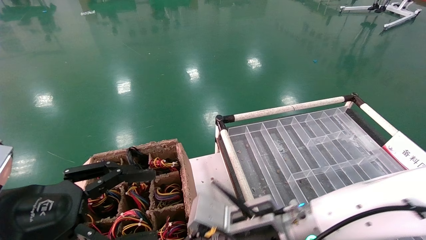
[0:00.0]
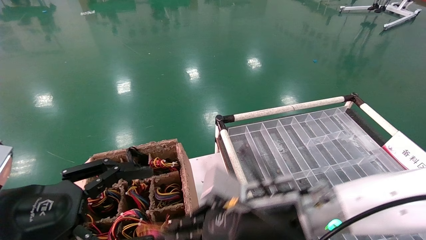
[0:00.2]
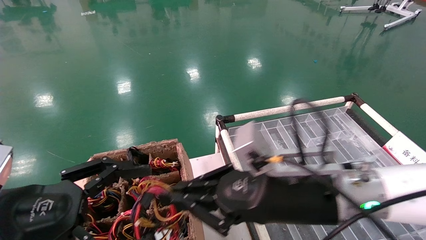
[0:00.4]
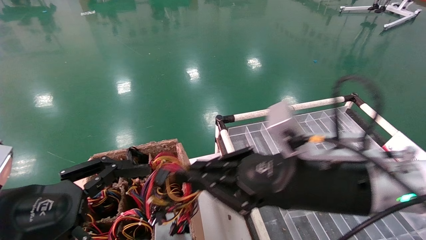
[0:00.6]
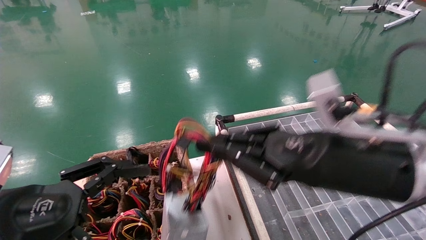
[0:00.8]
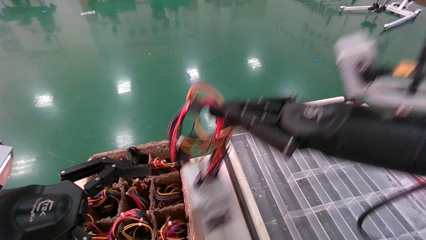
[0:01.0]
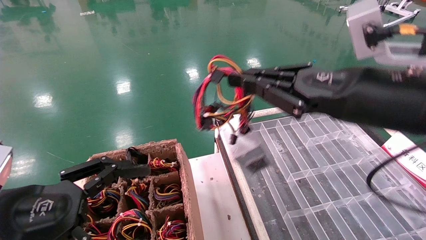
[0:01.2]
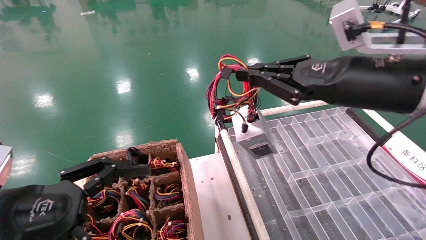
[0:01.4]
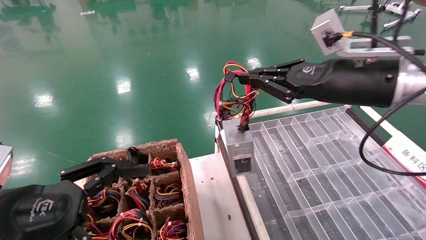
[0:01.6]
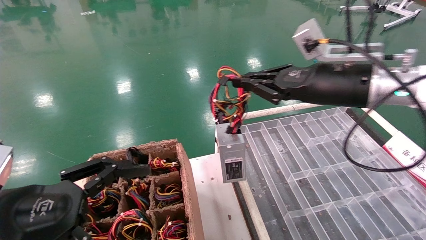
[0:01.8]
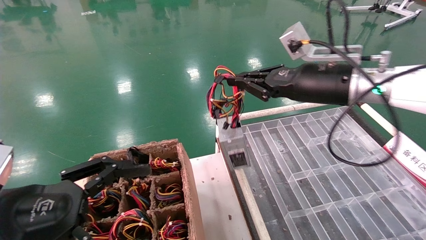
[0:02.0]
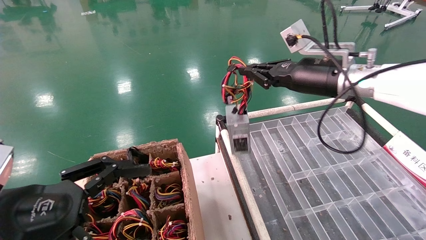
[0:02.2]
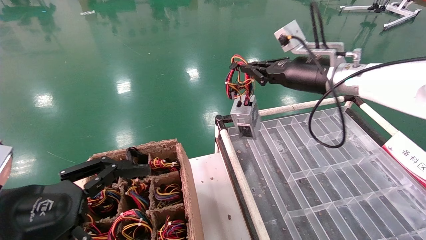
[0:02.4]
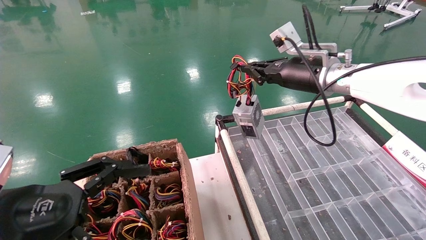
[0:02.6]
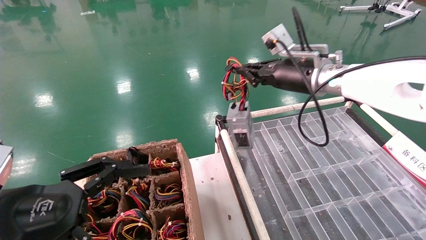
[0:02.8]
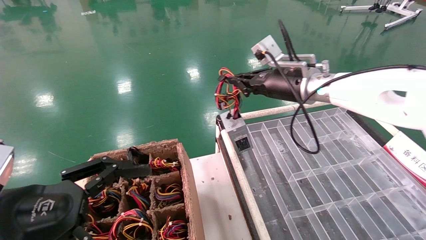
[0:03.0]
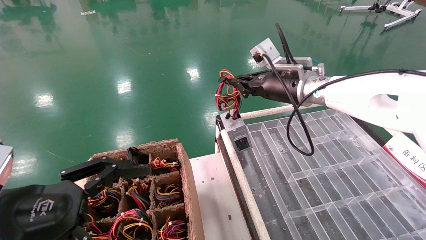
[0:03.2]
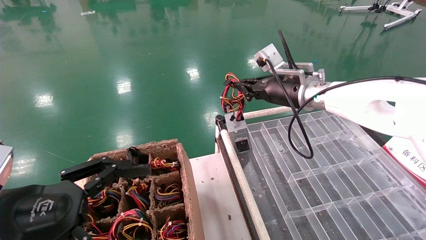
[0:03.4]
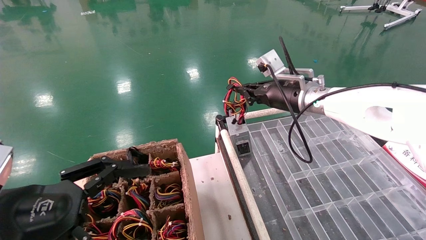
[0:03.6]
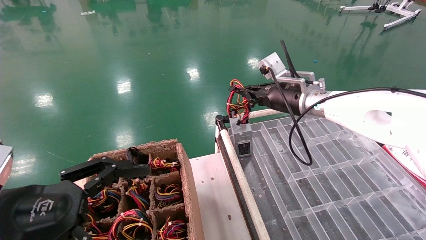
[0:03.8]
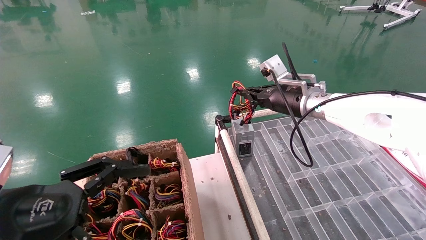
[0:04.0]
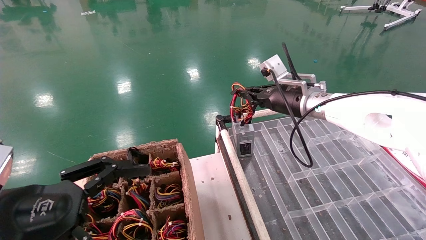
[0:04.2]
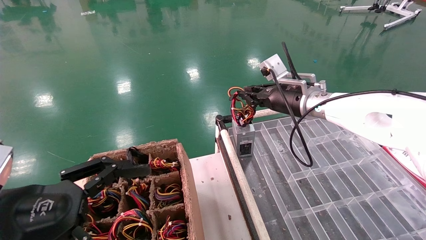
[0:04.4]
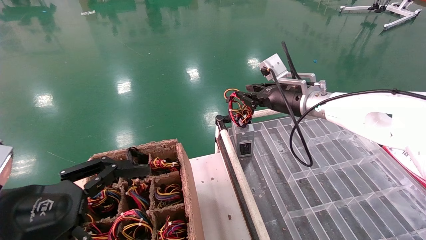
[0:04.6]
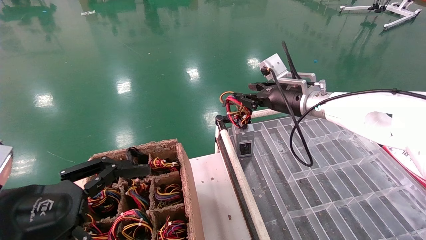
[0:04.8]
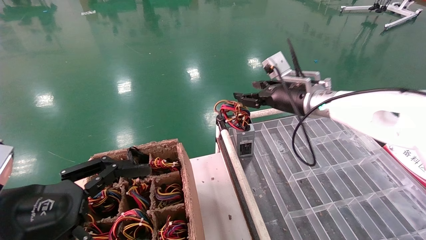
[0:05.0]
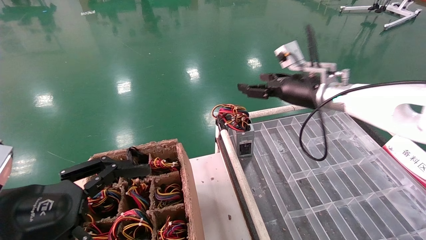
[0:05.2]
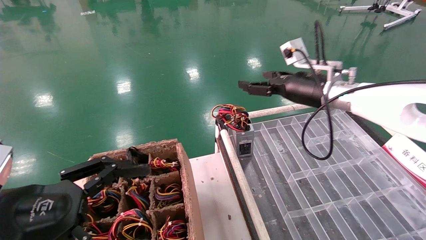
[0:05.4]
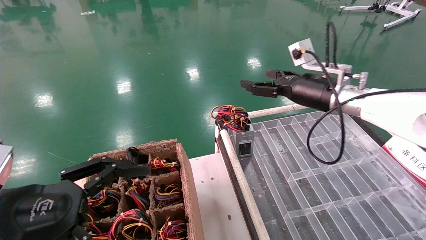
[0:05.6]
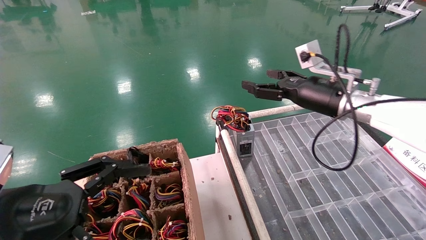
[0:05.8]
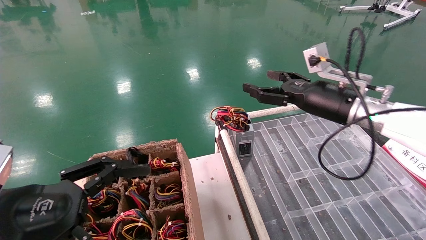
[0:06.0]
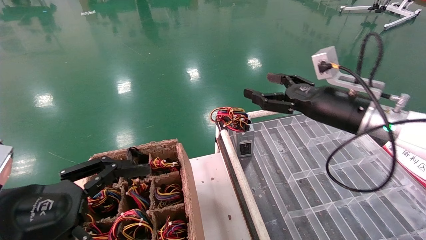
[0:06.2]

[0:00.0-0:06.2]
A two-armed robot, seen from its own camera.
Step, 0:00.0 to 0:04.4: Place the power supply on the operating table.
0:00.0 to 0:01.6: The right gripper goes approximately 25 cm upward and to the right; the left gripper opens its fingers.
0:01.6 to 0:03.2: The right gripper goes about 15 cm forward and to the left.
0:03.2 to 0:04.6: The grippers stay close to where they were, moving slightly.
0:04.6 to 0:06.2: The right gripper goes about 10 cm backward and to the right, and opens its fingers.

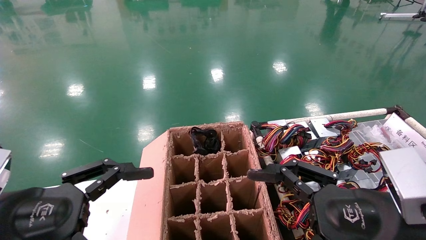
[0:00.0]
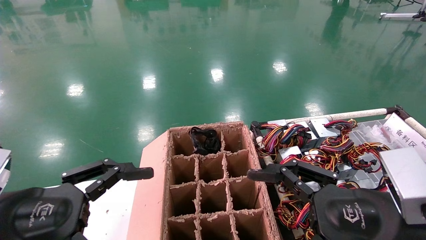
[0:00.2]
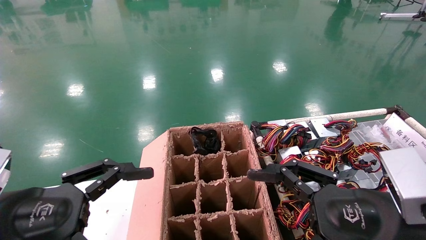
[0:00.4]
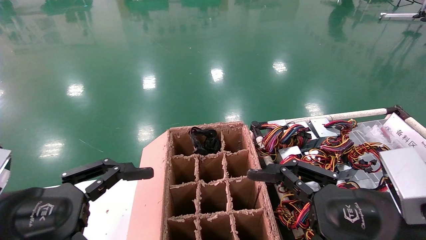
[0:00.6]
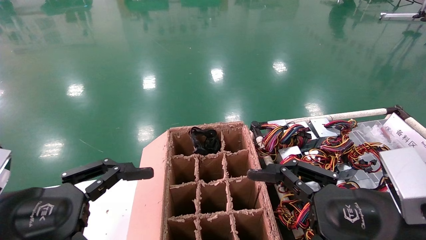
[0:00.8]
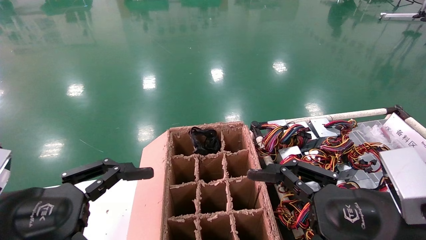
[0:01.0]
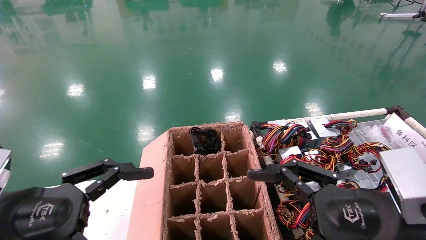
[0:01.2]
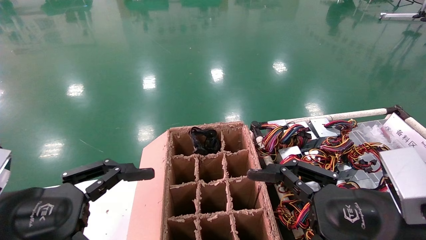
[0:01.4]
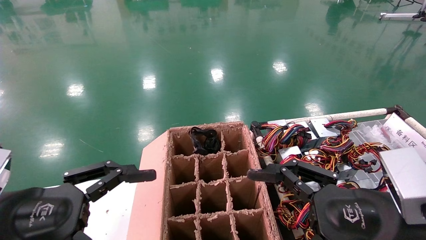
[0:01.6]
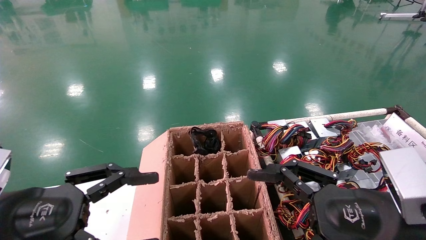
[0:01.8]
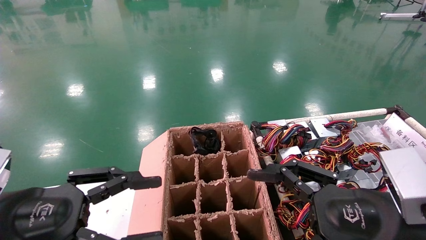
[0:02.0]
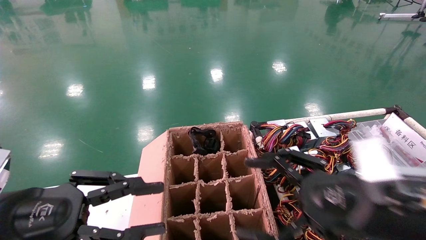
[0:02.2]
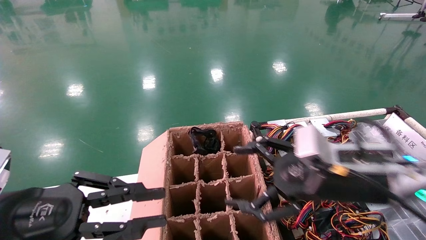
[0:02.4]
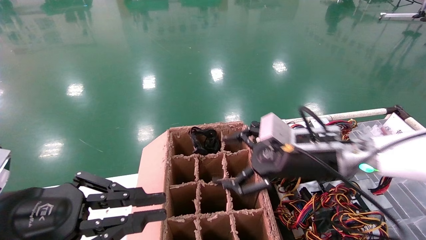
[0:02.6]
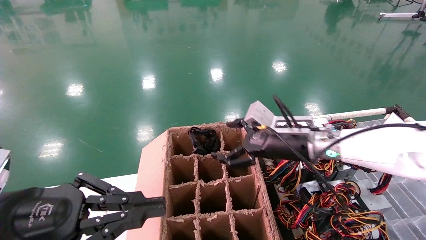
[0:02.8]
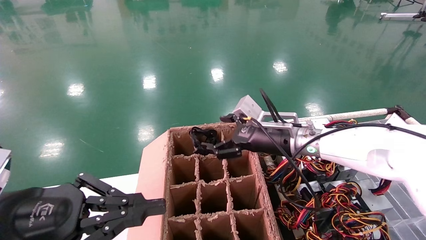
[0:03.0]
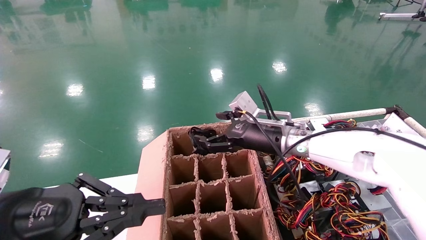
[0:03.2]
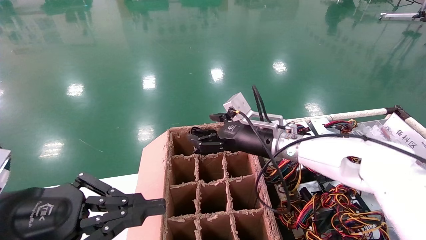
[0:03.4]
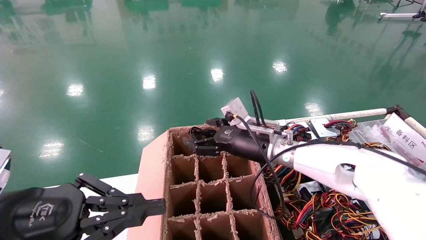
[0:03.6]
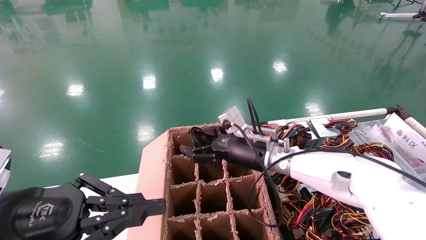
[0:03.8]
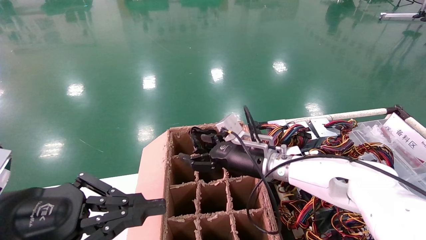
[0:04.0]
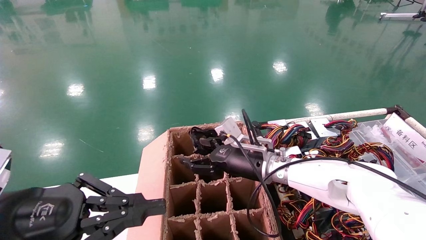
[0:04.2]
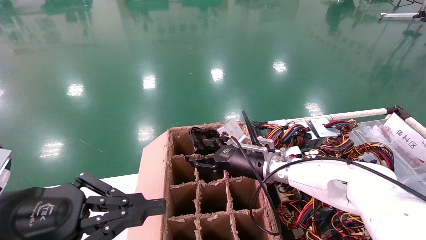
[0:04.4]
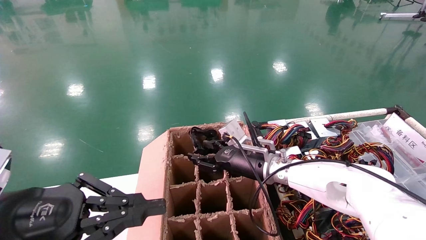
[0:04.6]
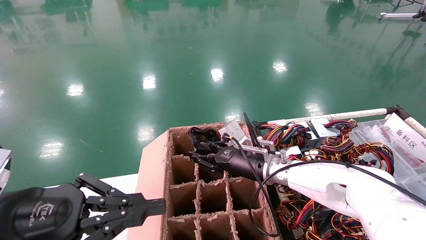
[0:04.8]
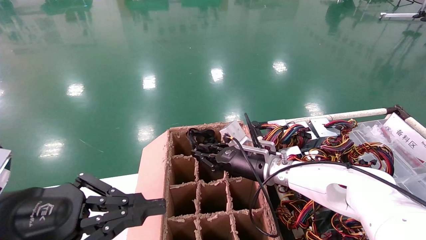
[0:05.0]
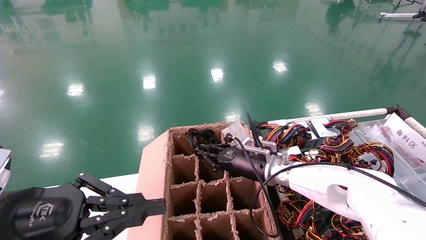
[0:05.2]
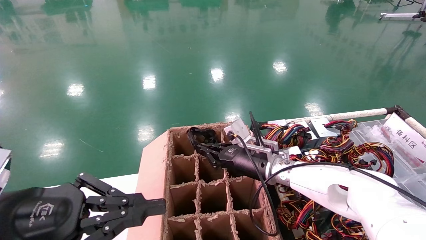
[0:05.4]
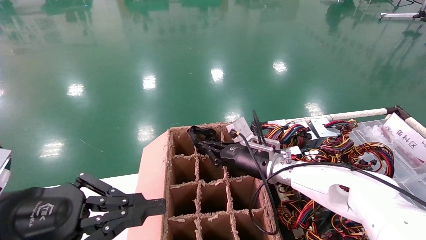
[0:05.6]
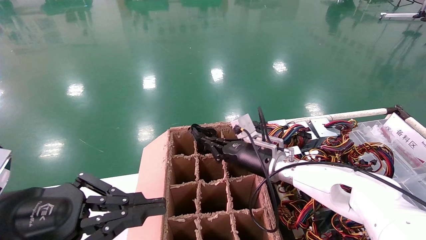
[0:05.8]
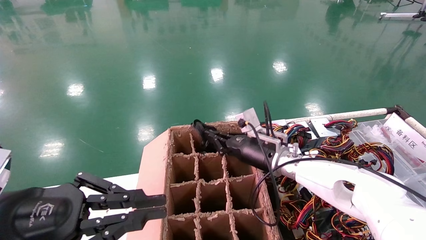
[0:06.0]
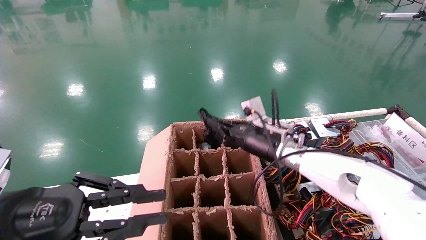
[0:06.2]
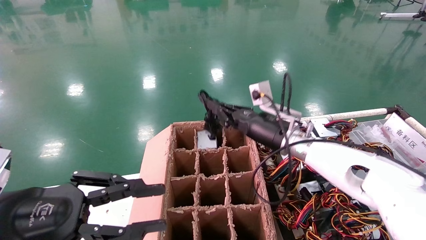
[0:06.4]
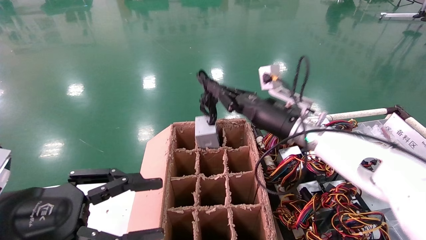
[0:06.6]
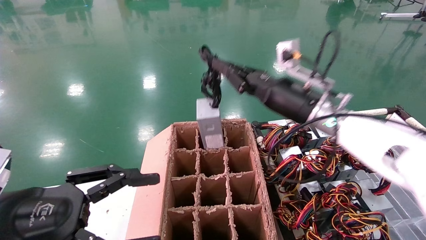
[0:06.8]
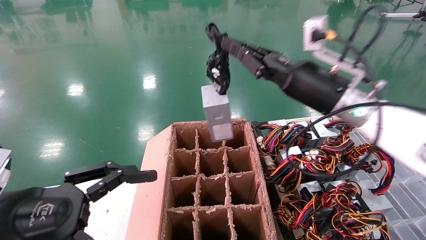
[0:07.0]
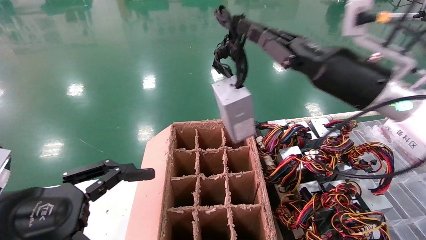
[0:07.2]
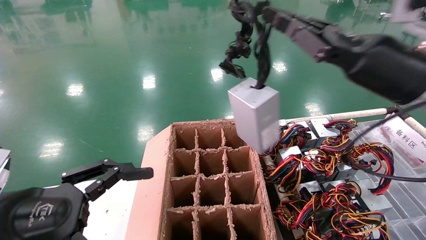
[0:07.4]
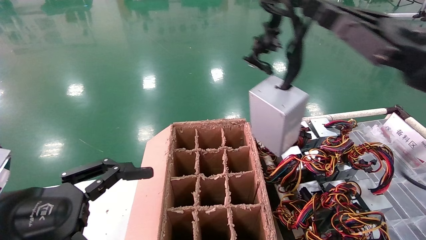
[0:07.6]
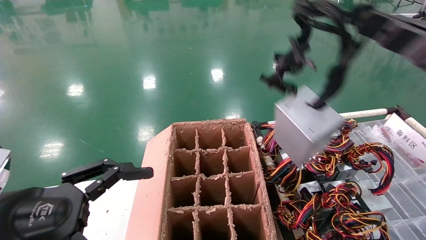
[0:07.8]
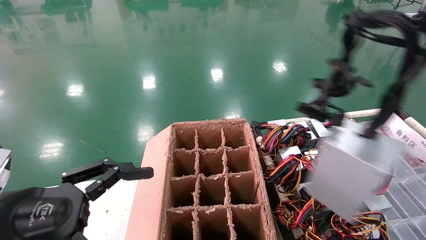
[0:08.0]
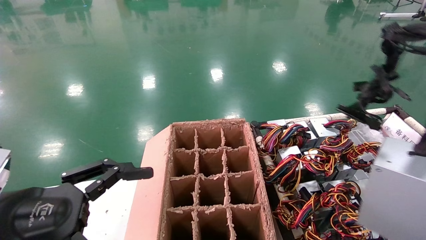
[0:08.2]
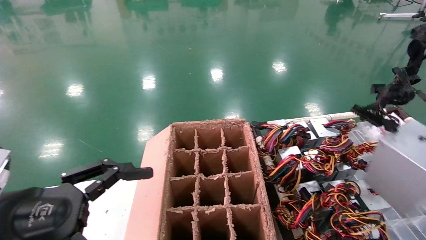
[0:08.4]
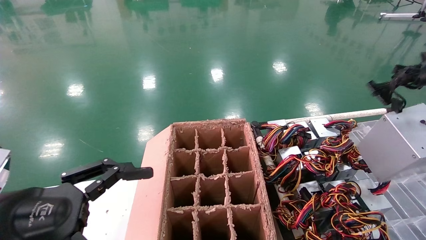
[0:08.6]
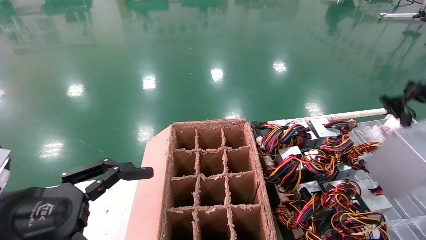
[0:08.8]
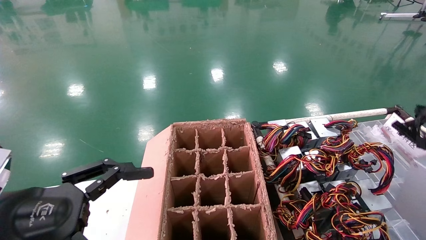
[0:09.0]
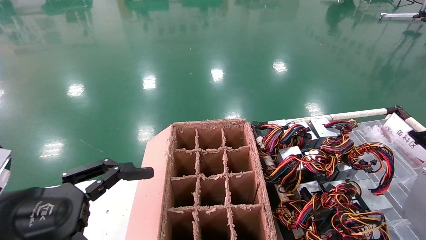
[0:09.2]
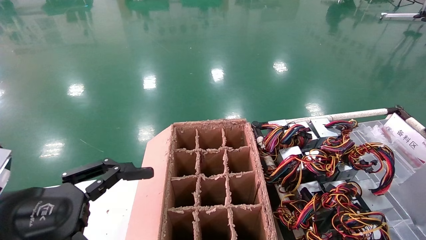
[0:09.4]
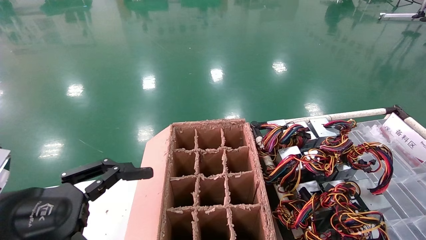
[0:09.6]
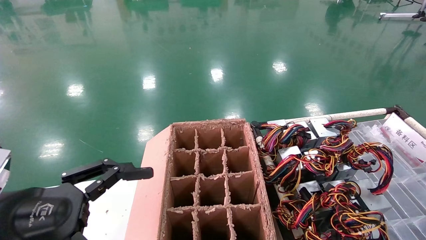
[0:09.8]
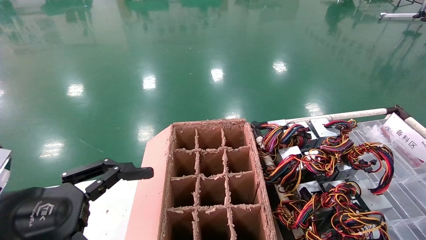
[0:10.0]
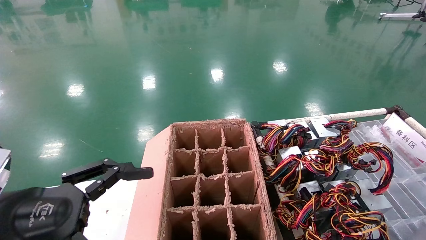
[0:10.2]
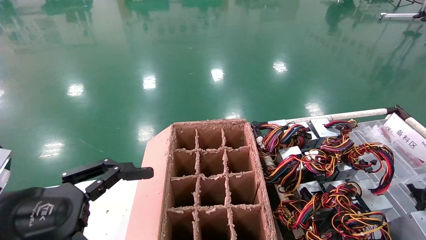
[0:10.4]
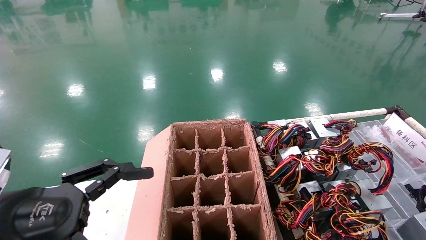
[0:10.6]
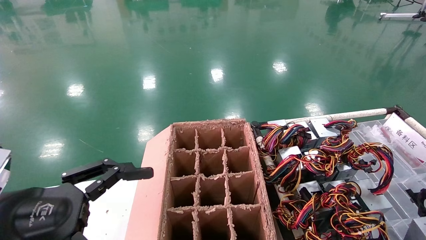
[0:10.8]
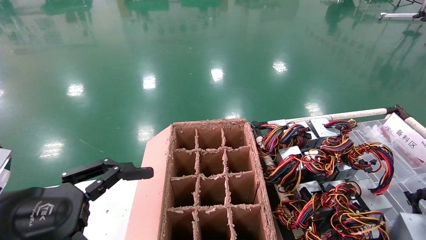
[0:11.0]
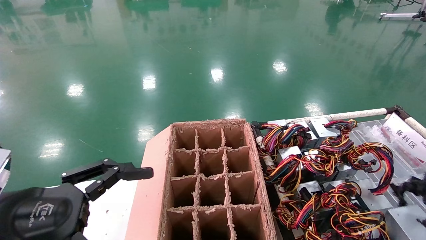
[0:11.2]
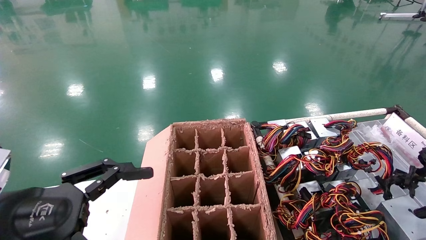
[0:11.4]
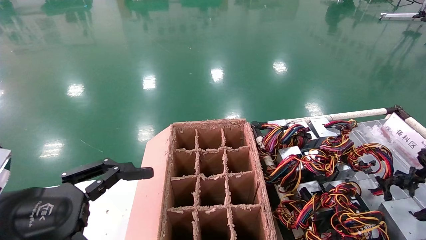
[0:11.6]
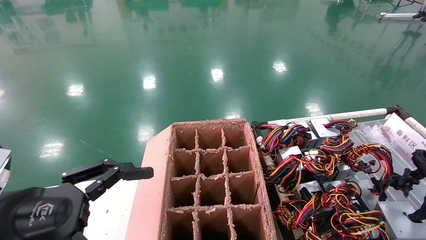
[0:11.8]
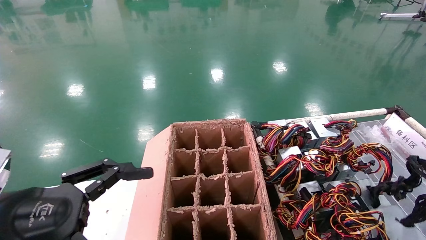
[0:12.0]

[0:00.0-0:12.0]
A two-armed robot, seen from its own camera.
Step, 0:02.8 to 0:06.0: Grab and lift the power supply from the large box.
0:00.0 to 0:01.6: The two grippers keep their place.
0:01.6 to 0:03.0: The right gripper moves forward, approximately 25 cm; the left gripper closes.
0:03.0 to 0:04.4: The right gripper travels downward by some 5 cm.
0:04.4 to 0:06.0: The right gripper closes.
0:06.0 to 0:07.6: The right gripper heads backward, to the right and upward, covering roughly 35 cm, while the left gripper opens.
0:07.6 to 0:09.0: The right gripper goes approximately 25 cm to the right, backward and downward.
0:09.0 to 0:10.4: The right gripper shifts some 15 cm downward.
0:10.4 to 0:12.0: The right gripper travels forward by about 10 cm.
